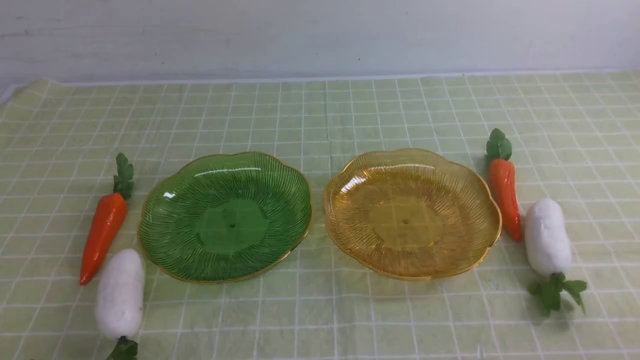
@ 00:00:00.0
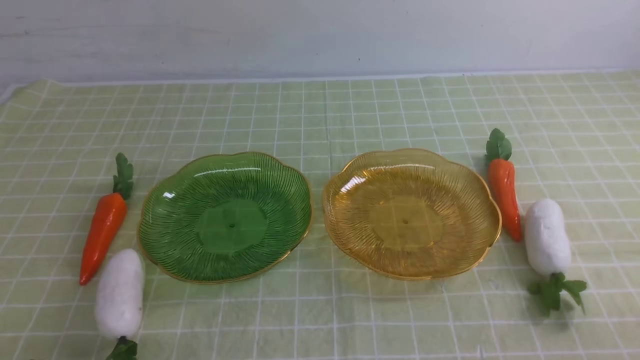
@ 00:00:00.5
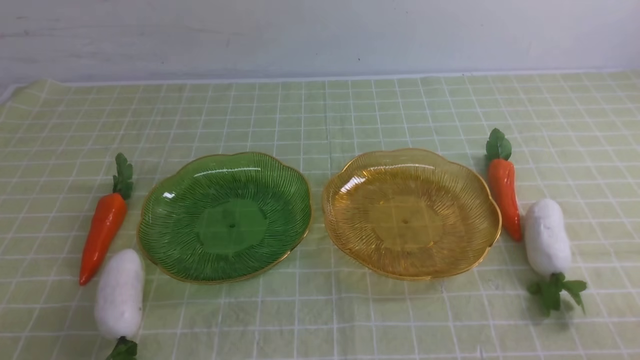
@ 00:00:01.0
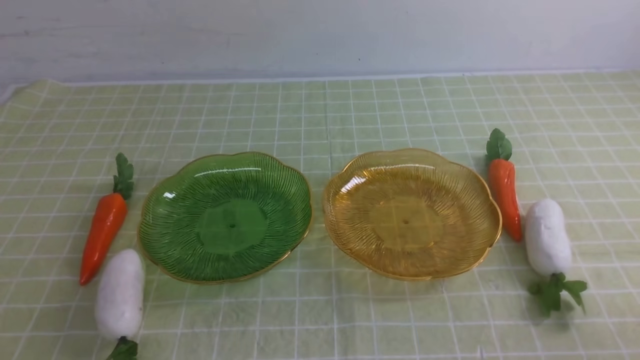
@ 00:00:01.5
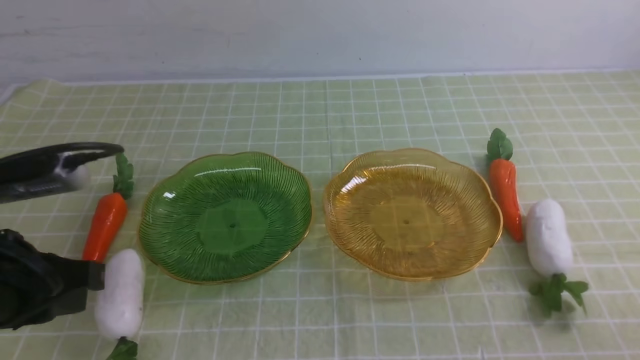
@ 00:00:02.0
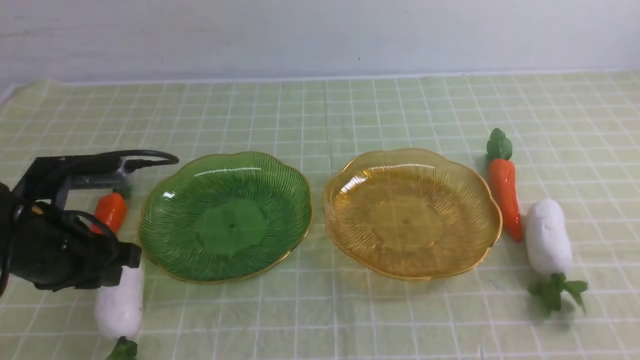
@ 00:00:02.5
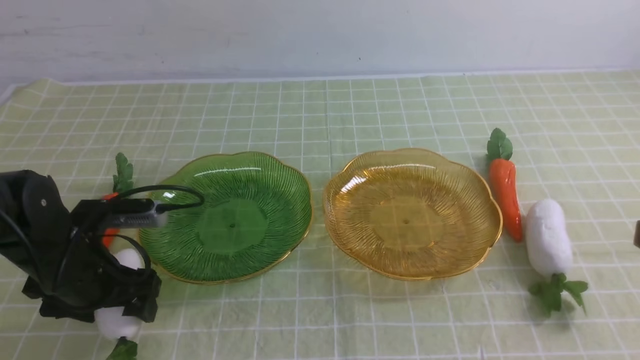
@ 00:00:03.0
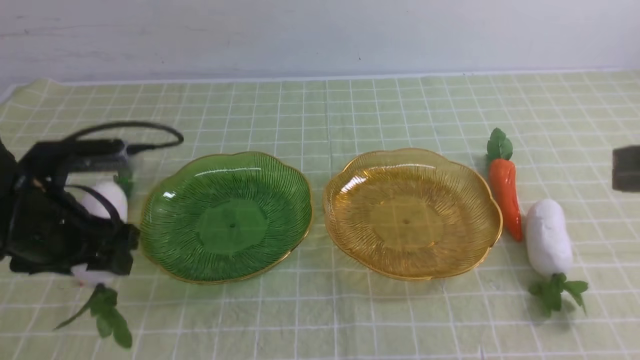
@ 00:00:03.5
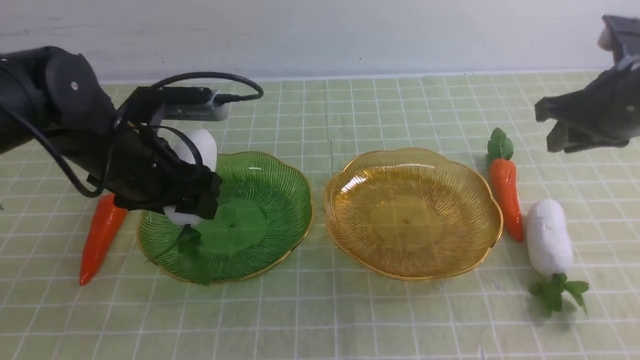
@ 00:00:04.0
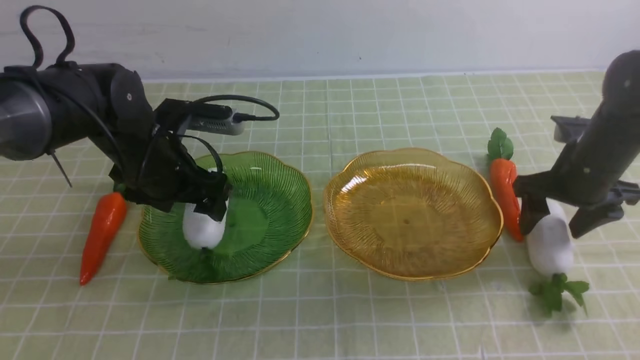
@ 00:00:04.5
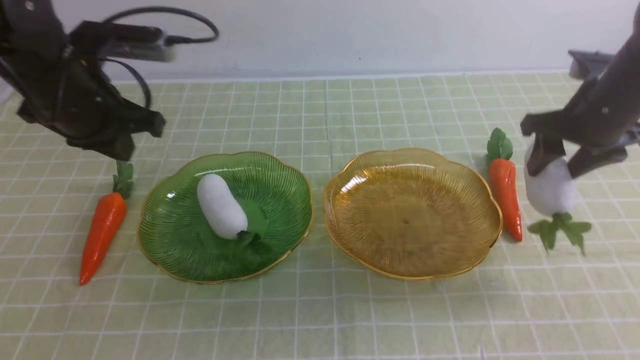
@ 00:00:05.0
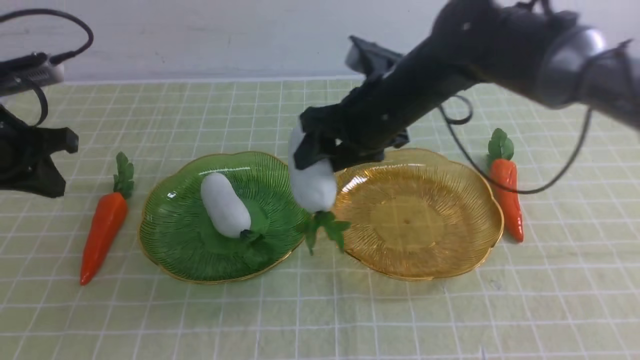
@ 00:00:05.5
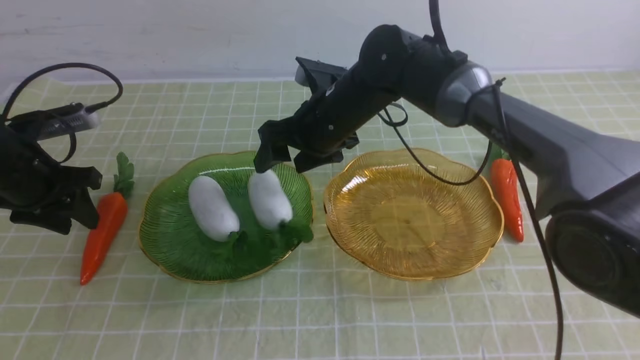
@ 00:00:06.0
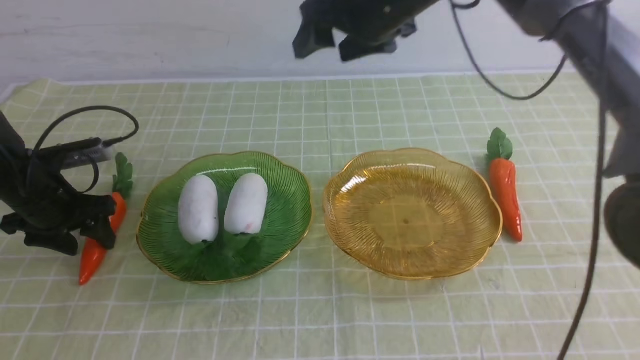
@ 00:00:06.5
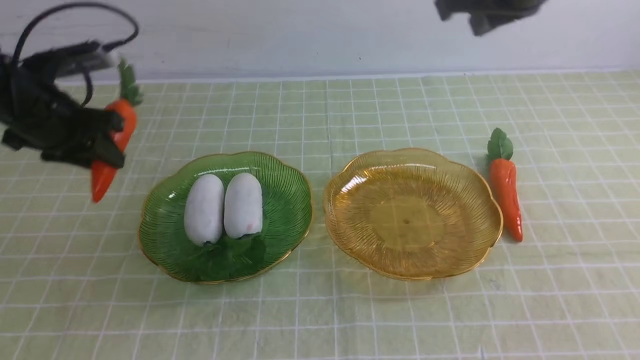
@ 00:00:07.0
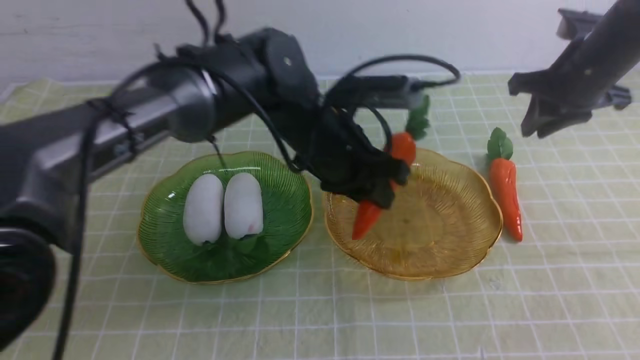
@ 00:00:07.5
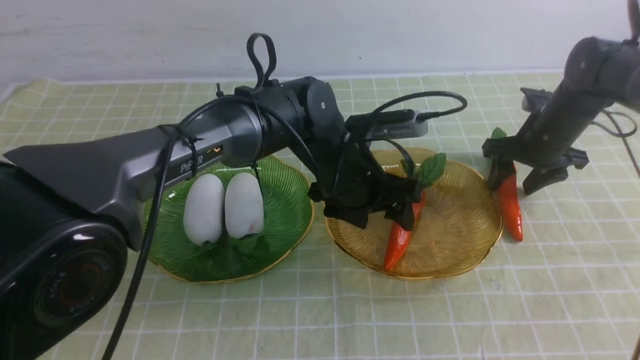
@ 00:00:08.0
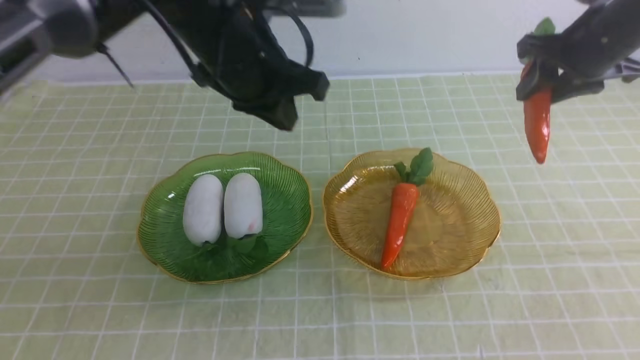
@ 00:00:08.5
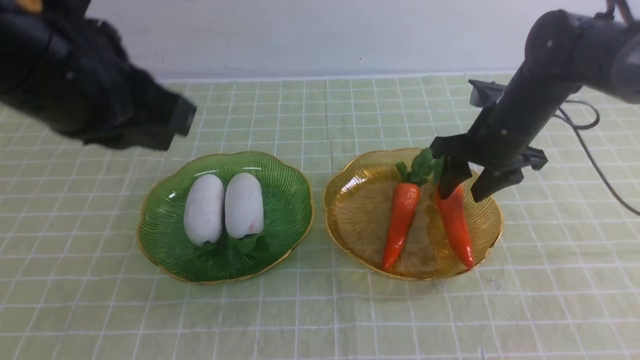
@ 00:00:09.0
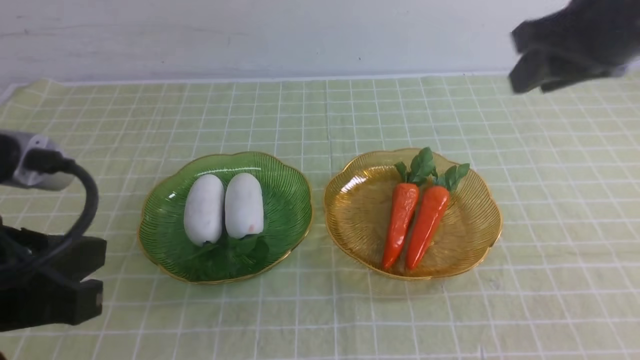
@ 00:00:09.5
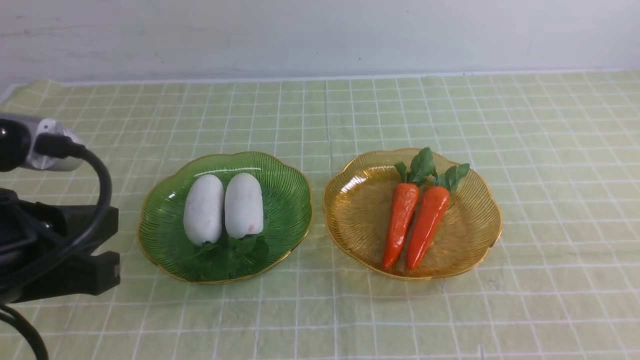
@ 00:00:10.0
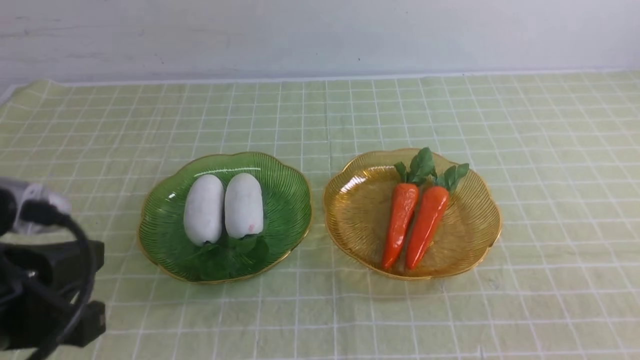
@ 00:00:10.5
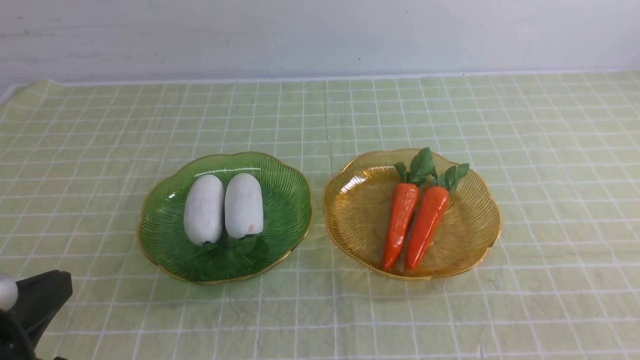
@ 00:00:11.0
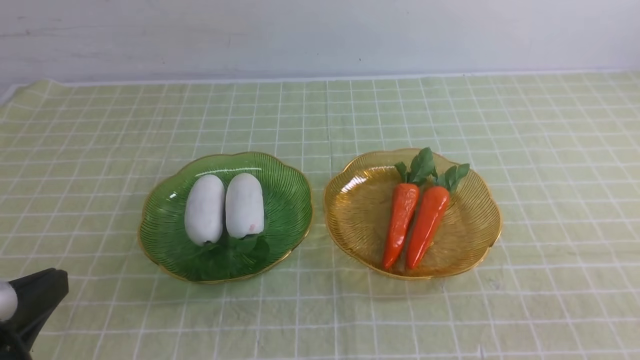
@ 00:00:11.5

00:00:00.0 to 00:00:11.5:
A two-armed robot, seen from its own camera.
Step, 00:00:00.0 to 00:00:03.5: use the left arm to grab a radish and put it into the left plate.
Step, 00:00:04.0 to 00:00:06.0: use the right arm to grab a radish and put it into the left plate.
Step, 00:00:06.5 to 00:00:08.5: use the left arm to grab a carrot and put it into the right plate.
Step, 00:00:09.0 to 00:00:09.5: use the right arm to grab a carrot and put it into the right plate.
00:00:00.0 to 00:00:02.0: The left gripper is displaced forward and upward by roughly 20 cm.
00:00:02.0 to 00:00:04.0: The left gripper shifts about 15 cm forward, and opens its fingers, while the right gripper moves forward, approximately 30 cm, and opens its fingers.
00:00:04.0 to 00:00:06.0: The left gripper goes about 15 cm to the left, and closes, then opens again; the right gripper travels to the left by about 25 cm, and opens its fingers.
00:00:06.0 to 00:00:07.5: The grippers both shift to the right by some 30 cm. The right gripper closes its fingers.
00:00:07.5 to 00:00:09.5: The left gripper is displaced backward and to the left by roughly 30 cm, and closes its fingers. The right gripper swings up and down, some 25 cm each way, with 3 reversals, and opens, then closes again.
00:00:09.5 to 00:00:11.5: The right gripper travels backward and downward by roughly 30 cm, and closes, while the left gripper moves downward and backward, approximately 10 cm.
